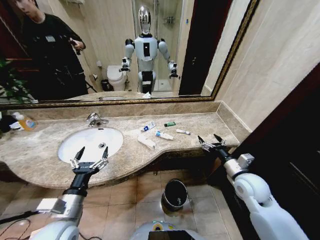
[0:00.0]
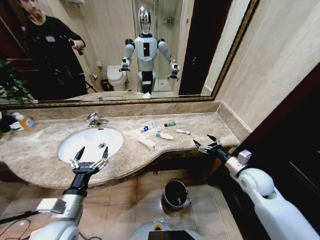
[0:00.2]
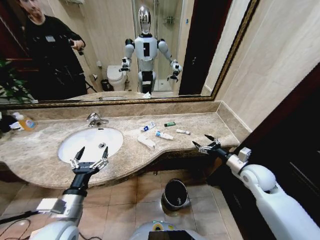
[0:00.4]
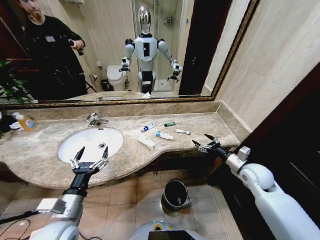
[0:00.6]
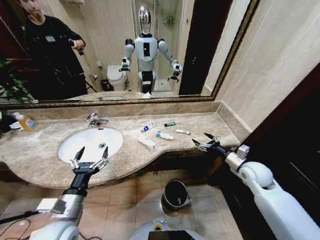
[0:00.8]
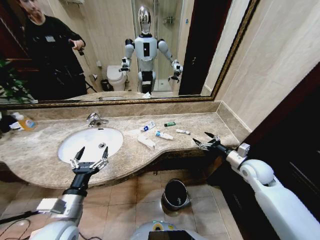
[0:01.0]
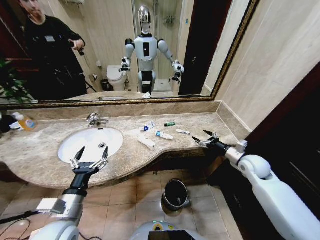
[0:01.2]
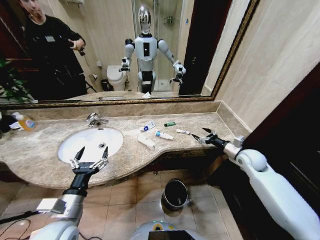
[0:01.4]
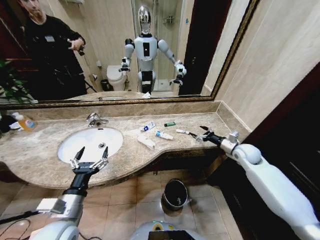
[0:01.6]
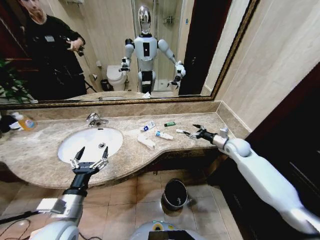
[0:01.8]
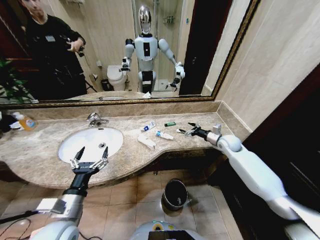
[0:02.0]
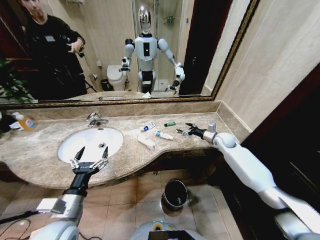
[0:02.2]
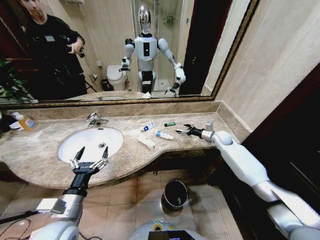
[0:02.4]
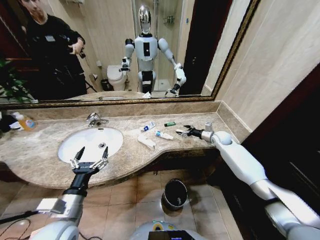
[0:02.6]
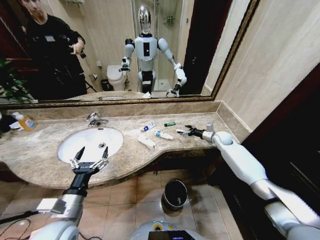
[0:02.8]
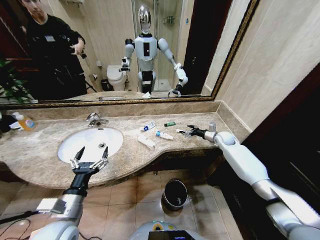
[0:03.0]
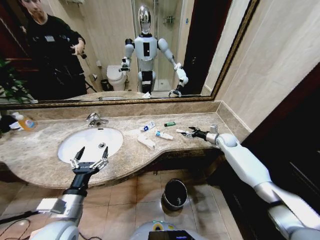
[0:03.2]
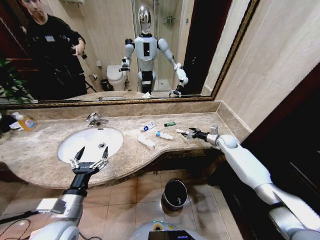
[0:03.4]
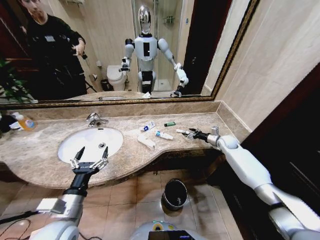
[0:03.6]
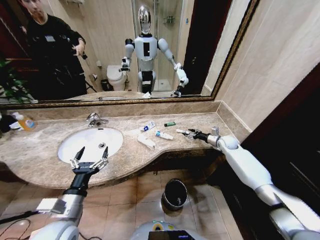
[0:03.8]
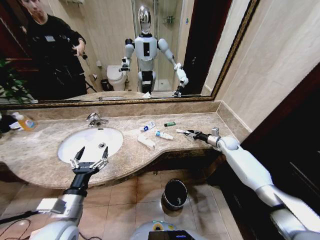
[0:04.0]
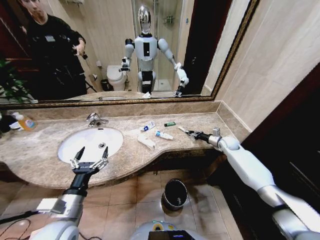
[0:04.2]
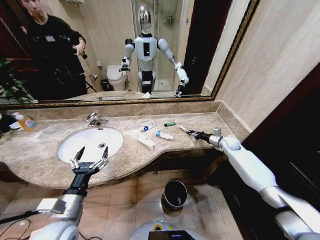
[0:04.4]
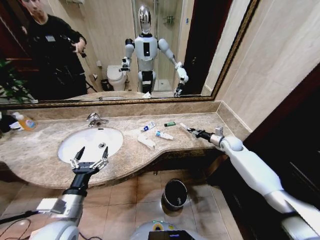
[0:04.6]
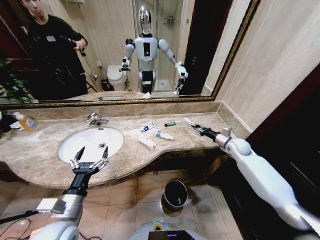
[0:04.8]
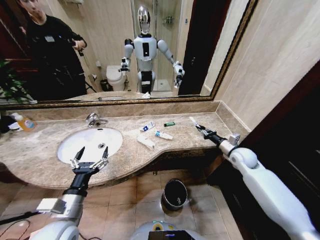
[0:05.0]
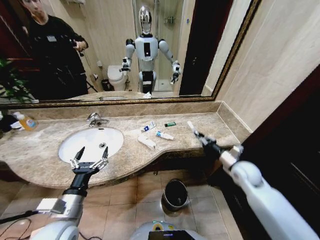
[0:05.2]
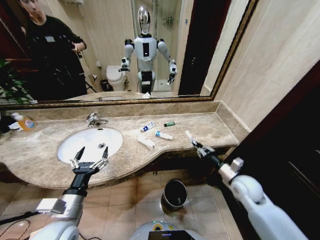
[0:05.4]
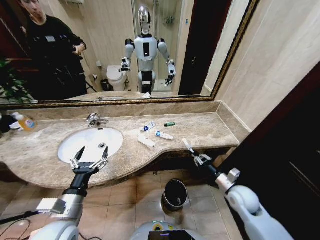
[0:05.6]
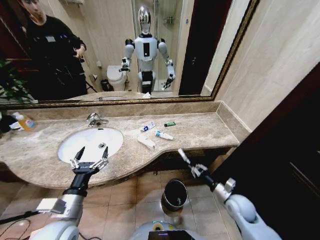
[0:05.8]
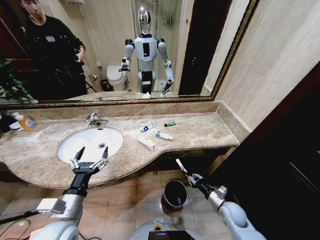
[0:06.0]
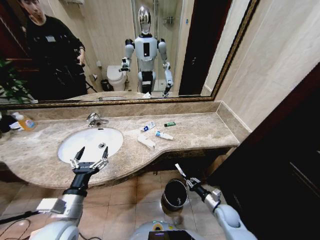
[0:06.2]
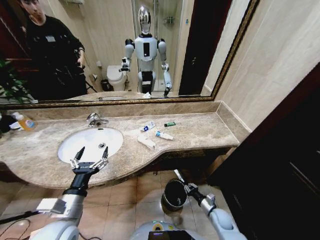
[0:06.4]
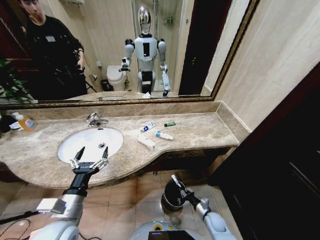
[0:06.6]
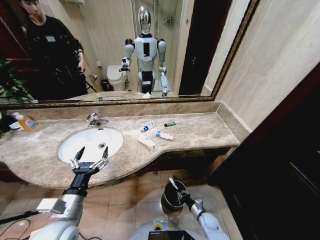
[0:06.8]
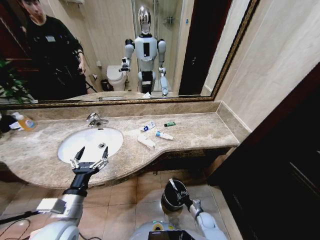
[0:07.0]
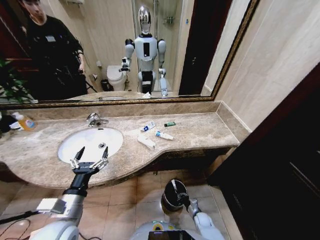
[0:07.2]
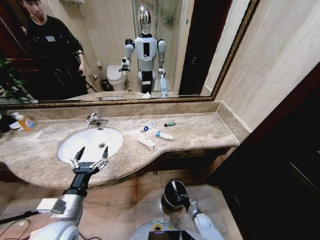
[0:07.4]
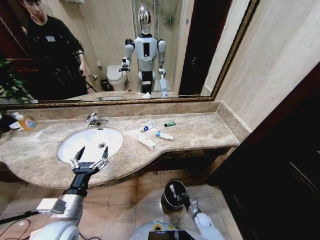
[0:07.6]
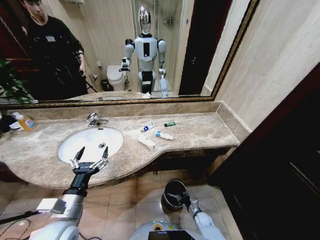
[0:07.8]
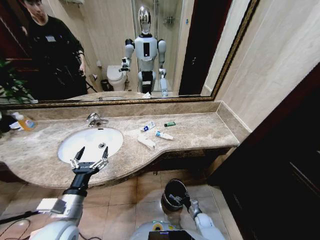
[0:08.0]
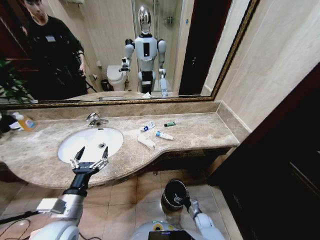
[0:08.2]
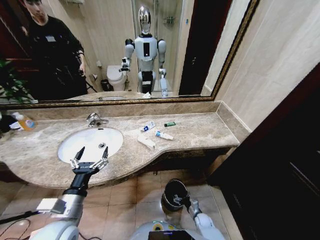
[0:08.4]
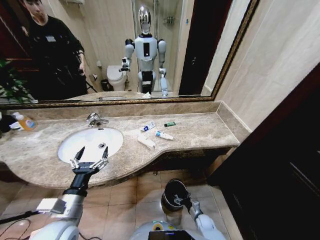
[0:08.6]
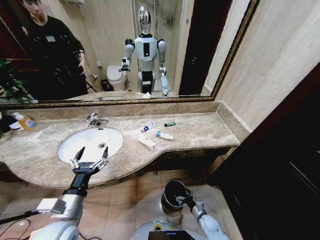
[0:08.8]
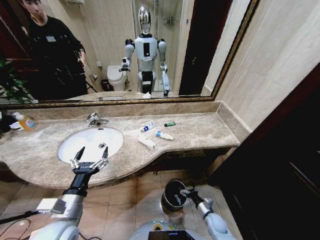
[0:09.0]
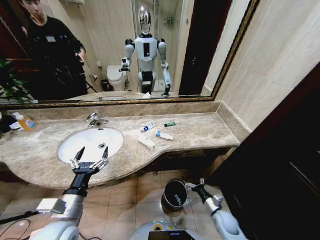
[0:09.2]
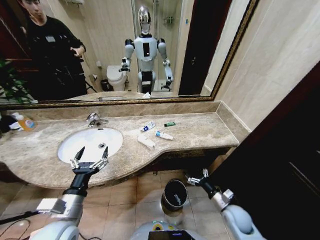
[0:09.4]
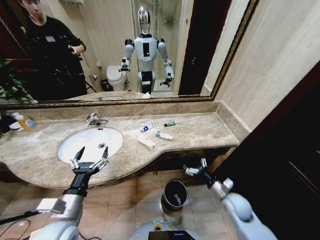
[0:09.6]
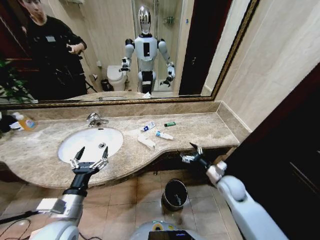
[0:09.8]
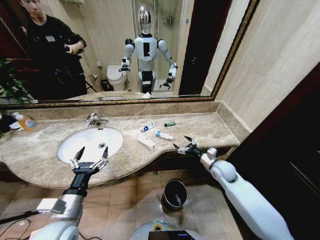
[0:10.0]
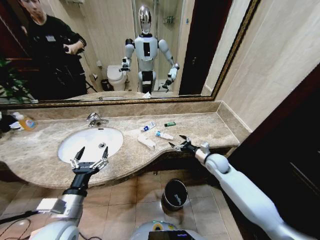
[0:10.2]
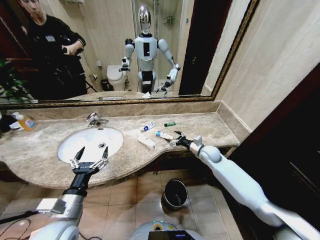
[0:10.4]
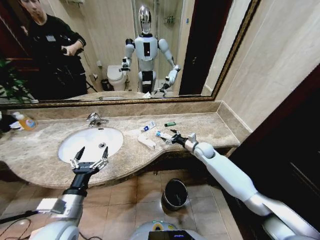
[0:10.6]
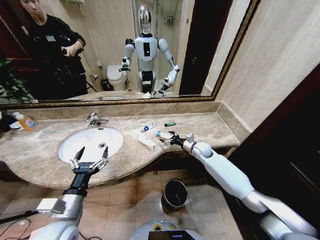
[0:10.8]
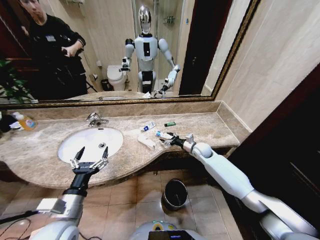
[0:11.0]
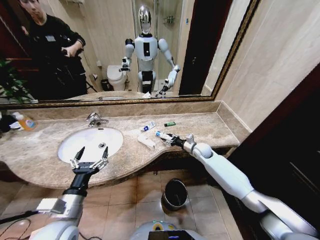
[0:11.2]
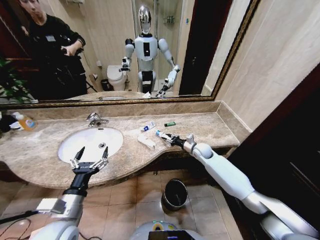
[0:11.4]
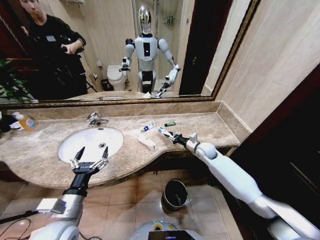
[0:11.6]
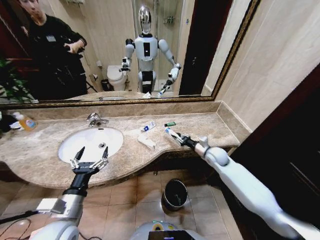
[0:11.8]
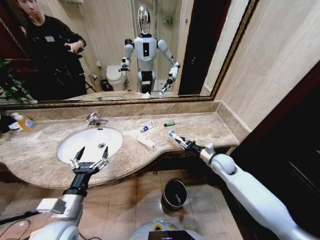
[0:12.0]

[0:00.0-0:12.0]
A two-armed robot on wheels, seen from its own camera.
Task of the whole recording: Pick up the trash from the sink and place it in the trash bin.
0:01.6 to 0:03.0: The right gripper heads forward, covering approximately 15 cm.
0:03.0 to 0:04.4: The right gripper closes its fingers.
0:04.4 to 0:06.0: The right gripper travels backward and downward by about 30 cm.
0:06.0 to 0:07.6: The right gripper is displaced downward by roughly 20 cm.
0:07.6 to 0:09.0: The right gripper heads upward, covering approximately 10 cm, and opens up.
0:09.0 to 0:10.4: The right gripper moves upward and forward, roughly 35 cm.
0:10.4 to 0:12.0: The right gripper moves backward, some 5 cm, and closes.

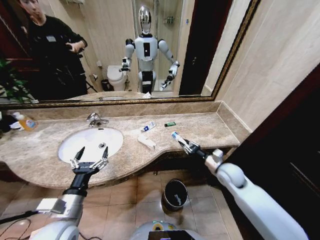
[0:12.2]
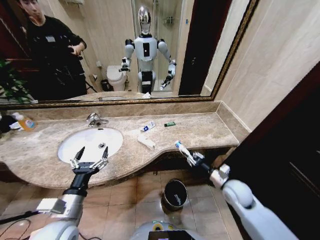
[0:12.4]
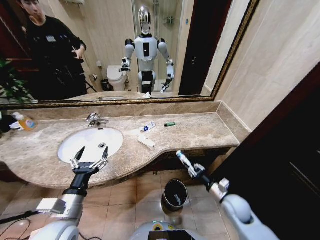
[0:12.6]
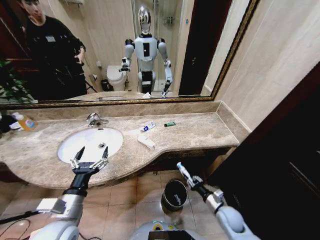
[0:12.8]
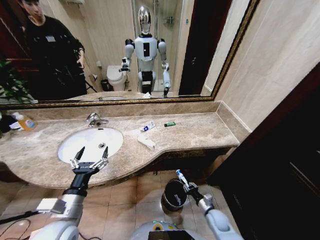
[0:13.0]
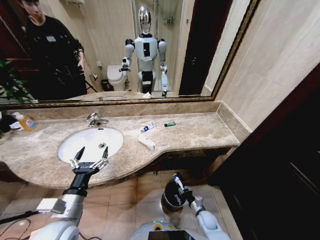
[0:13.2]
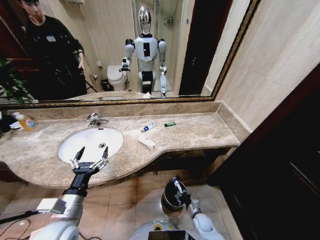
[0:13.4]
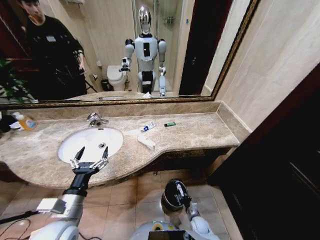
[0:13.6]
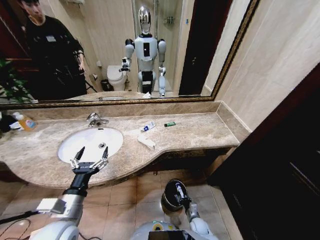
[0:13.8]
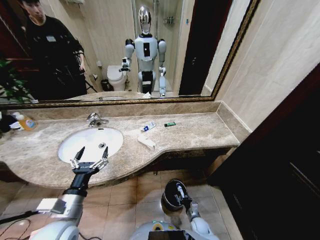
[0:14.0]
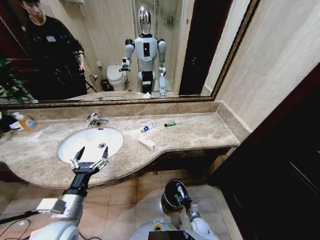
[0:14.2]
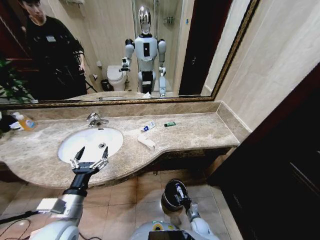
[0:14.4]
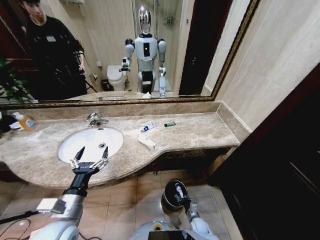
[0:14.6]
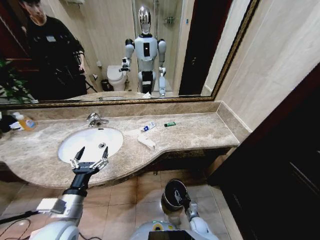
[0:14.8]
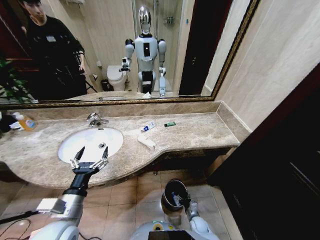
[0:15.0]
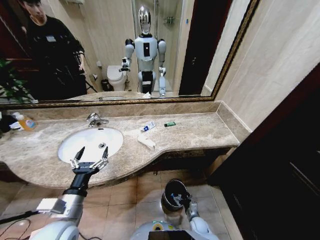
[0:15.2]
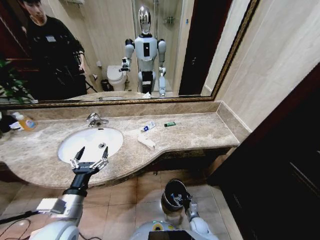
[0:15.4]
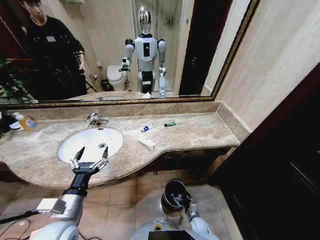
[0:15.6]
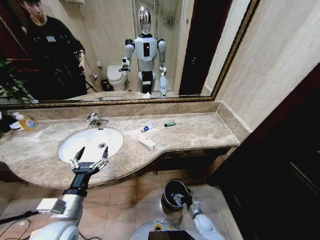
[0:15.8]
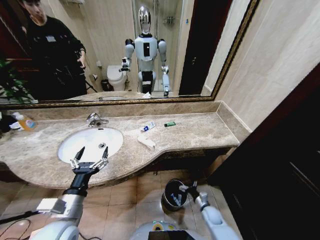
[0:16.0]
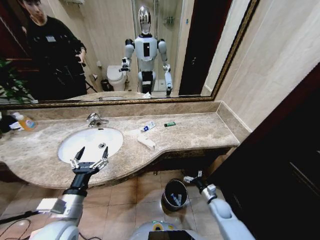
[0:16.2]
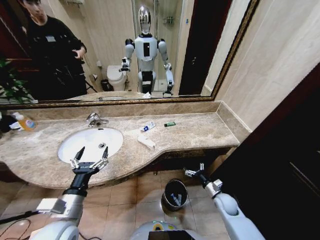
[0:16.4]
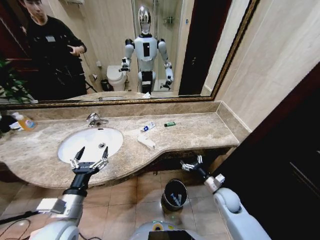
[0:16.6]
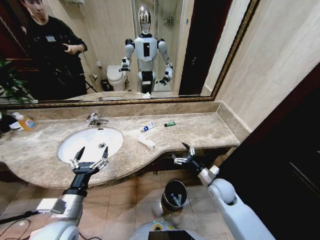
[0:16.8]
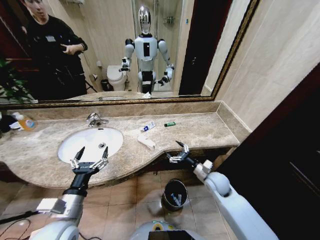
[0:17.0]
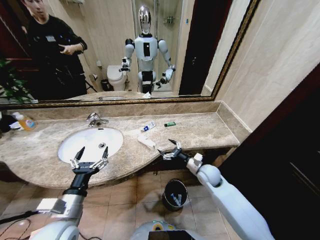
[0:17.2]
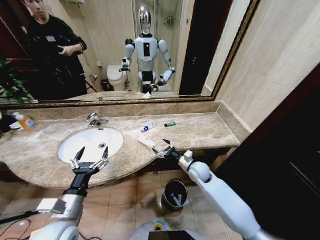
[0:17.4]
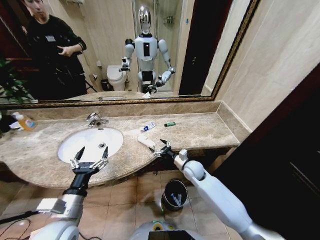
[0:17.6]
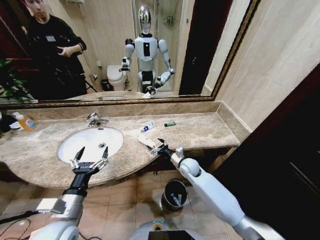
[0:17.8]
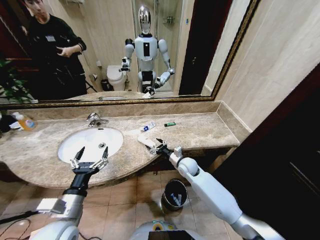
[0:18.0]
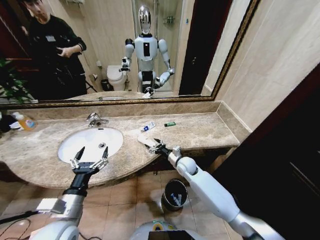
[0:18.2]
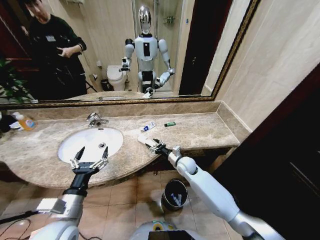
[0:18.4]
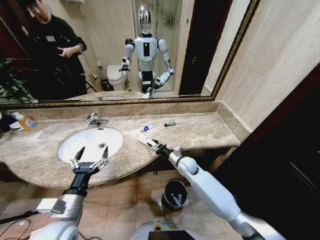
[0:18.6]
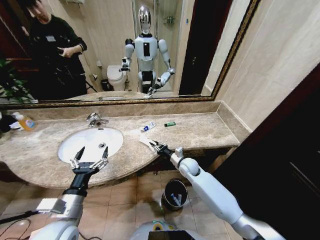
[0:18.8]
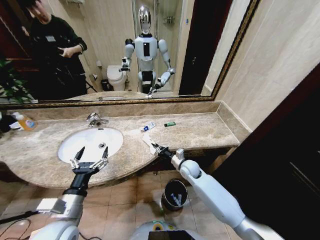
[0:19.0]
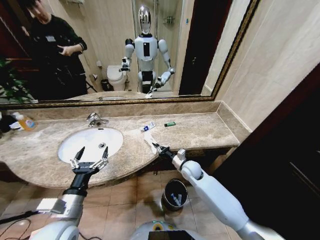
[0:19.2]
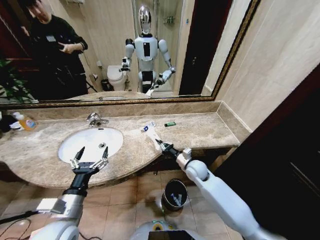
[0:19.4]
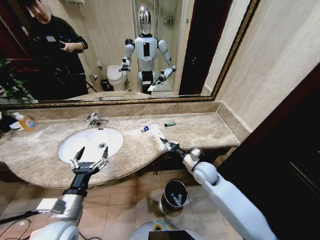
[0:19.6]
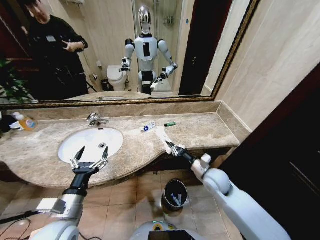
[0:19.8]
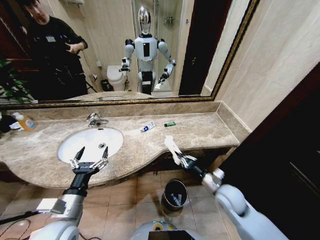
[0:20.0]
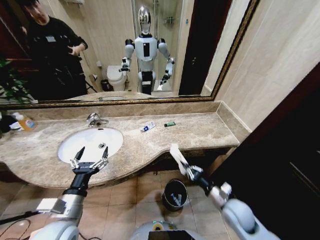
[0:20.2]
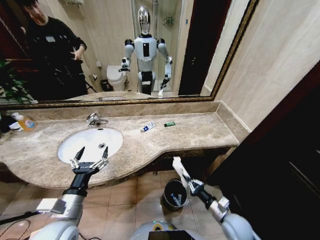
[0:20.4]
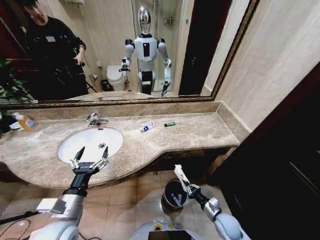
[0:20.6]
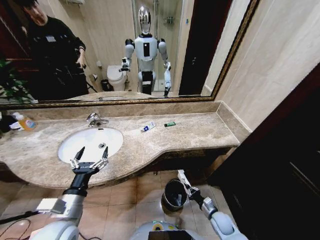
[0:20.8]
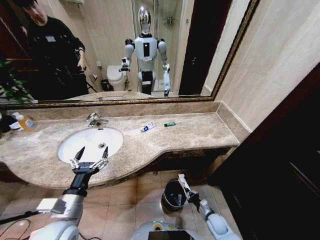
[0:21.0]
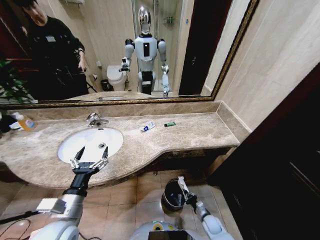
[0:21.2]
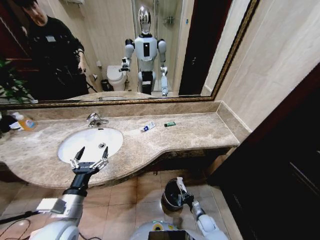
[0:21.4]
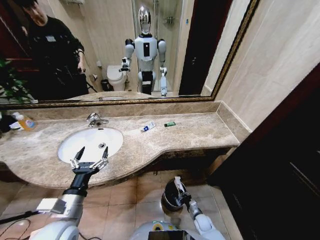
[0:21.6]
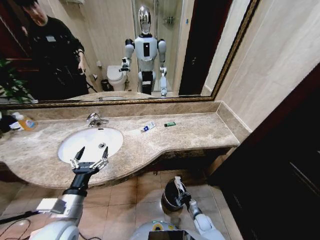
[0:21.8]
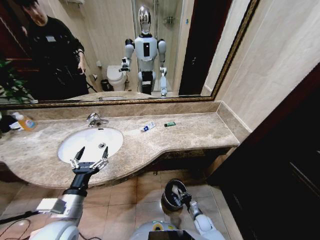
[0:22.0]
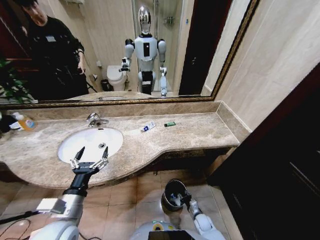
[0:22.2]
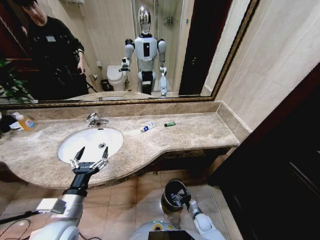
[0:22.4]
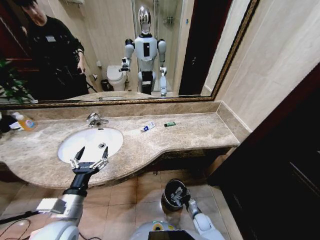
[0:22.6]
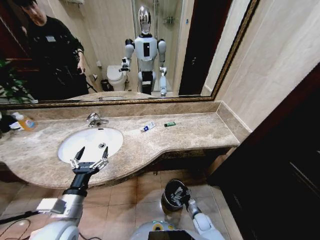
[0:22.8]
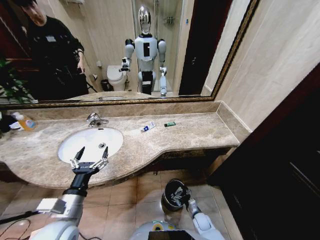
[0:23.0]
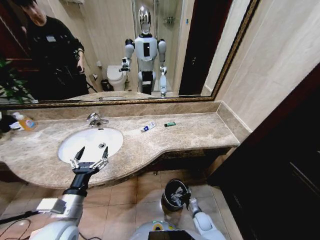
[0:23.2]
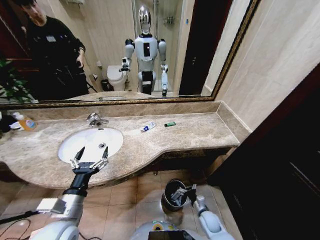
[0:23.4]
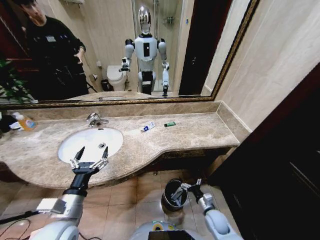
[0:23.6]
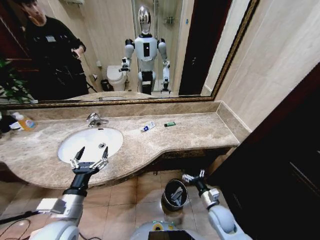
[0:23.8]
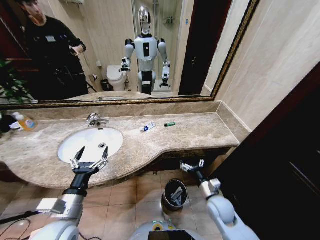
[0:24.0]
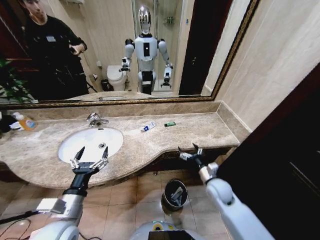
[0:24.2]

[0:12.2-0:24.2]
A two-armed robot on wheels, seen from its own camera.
Task of the whole recording: Pick up the trash from the sink and place it in the trash bin.
0:12.2 to 0:13.8: The right gripper heads downward, covering some 35 cm.
0:15.2 to 0:16.6: The right gripper moves upward, approximately 25 cm.
0:16.6 to 0:18.2: The right gripper moves to the left and forward, approximately 20 cm.
0:18.2 to 0:19.8: The right gripper travels backward, to the right and upward by some 15 cm, and closes up.
0:19.8 to 0:21.2: The right gripper moves downward, approximately 30 cm.
0:21.2 to 0:22.6: The right gripper ends up some 5 cm from where it was, and opens.
0:22.6 to 0:24.2: The right gripper is displaced upward by approximately 30 cm.
